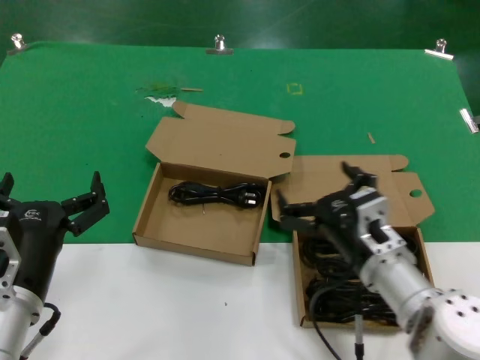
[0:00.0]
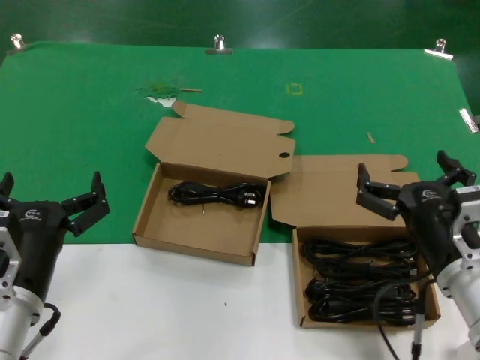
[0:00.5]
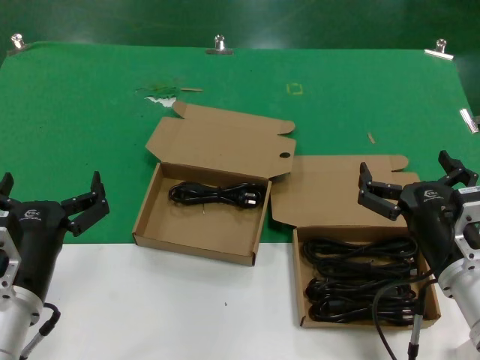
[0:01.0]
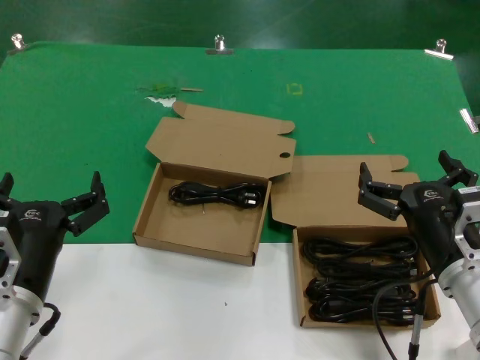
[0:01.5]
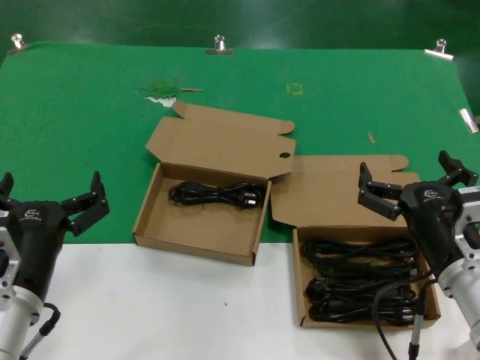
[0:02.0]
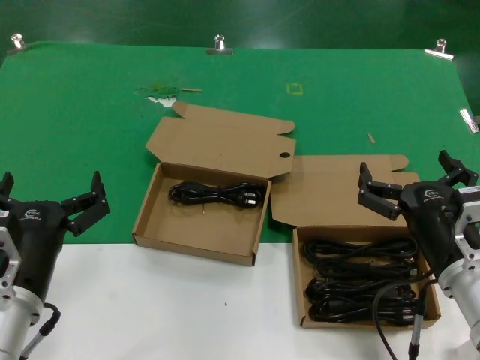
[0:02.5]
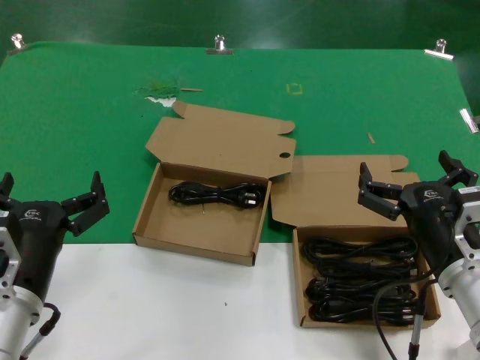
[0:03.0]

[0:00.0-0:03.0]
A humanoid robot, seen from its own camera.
Task of the whole recording: take the parts from the box containing them and put them into an empty box.
0:00.0 to 0:01.5: The right hand goes about 10 cm to the right and backward.
0:01.5 to 0:03.0: The two hands keep their place.

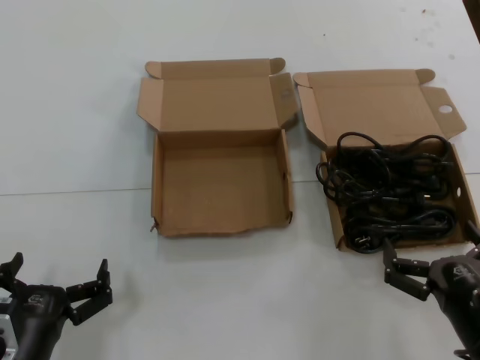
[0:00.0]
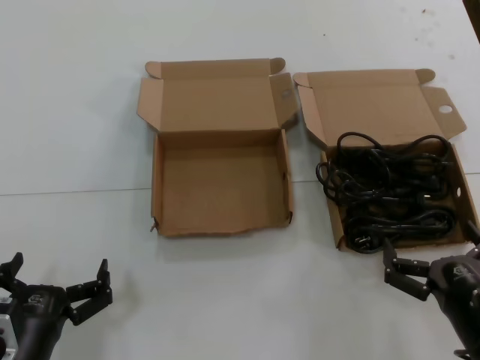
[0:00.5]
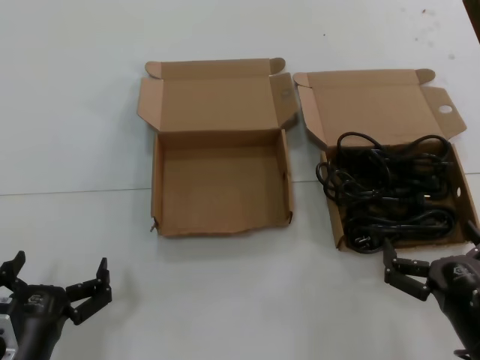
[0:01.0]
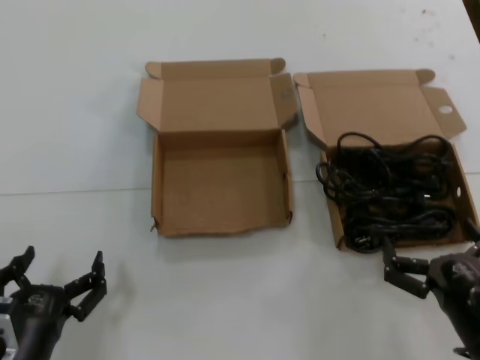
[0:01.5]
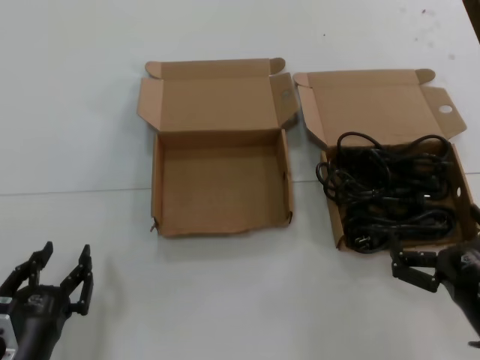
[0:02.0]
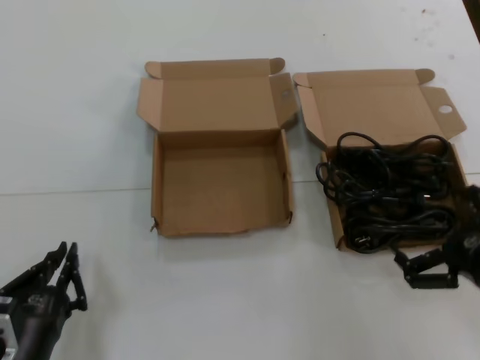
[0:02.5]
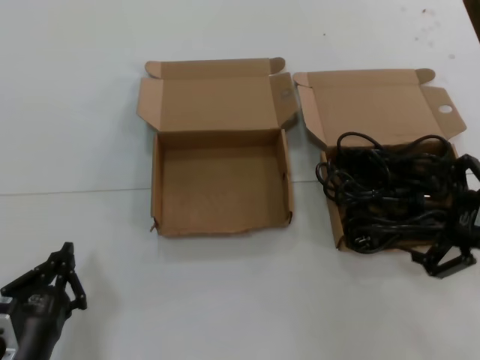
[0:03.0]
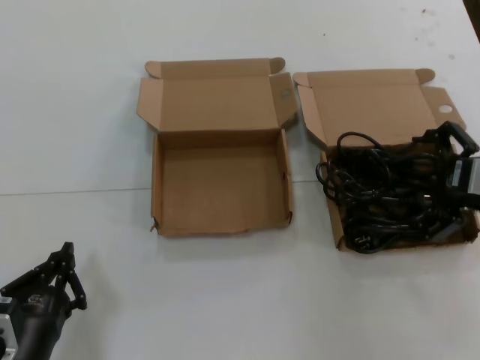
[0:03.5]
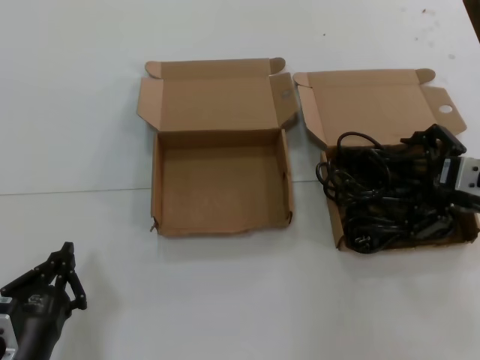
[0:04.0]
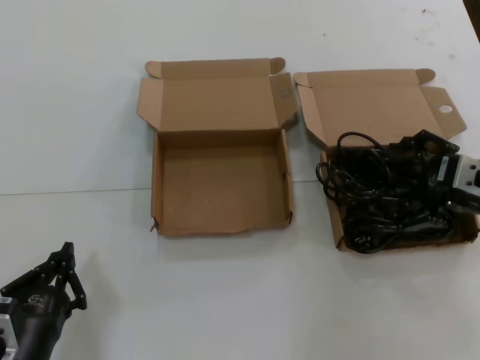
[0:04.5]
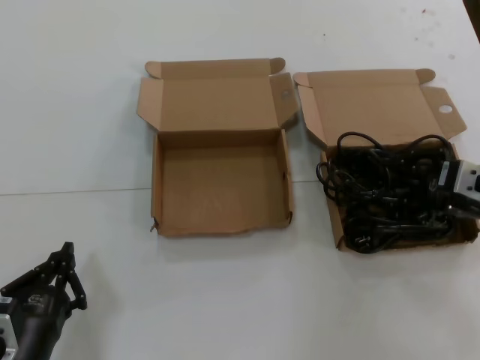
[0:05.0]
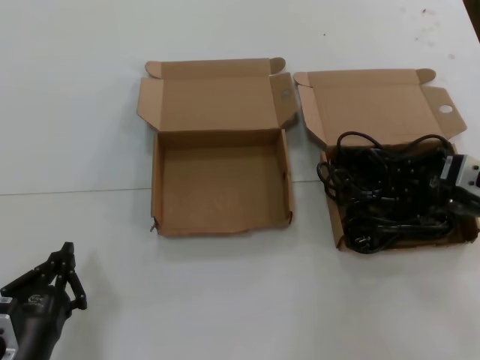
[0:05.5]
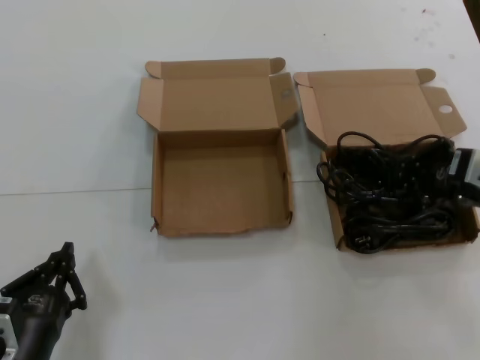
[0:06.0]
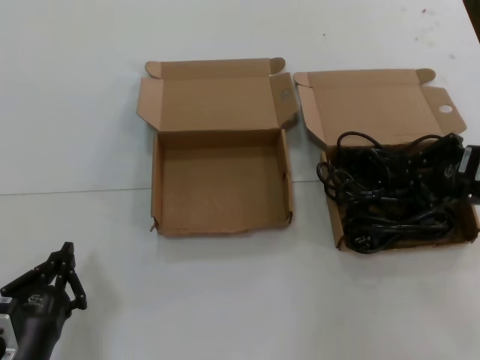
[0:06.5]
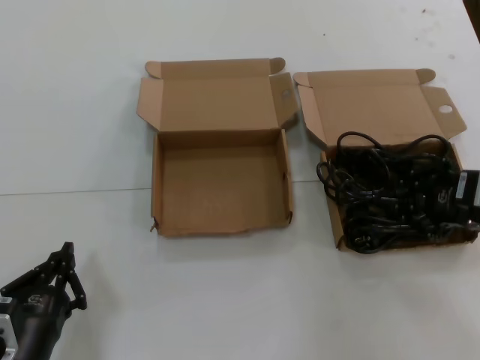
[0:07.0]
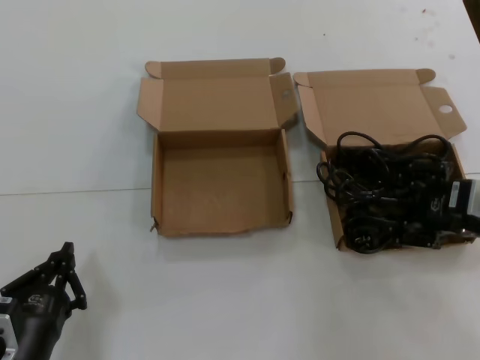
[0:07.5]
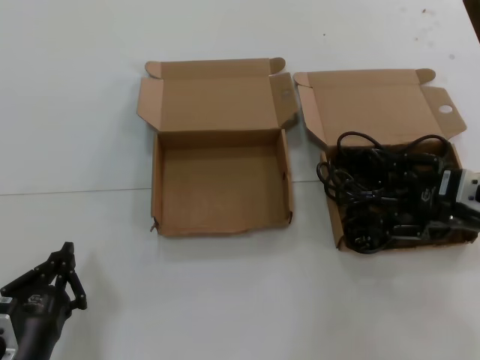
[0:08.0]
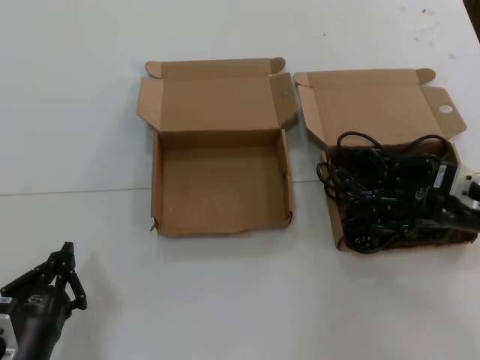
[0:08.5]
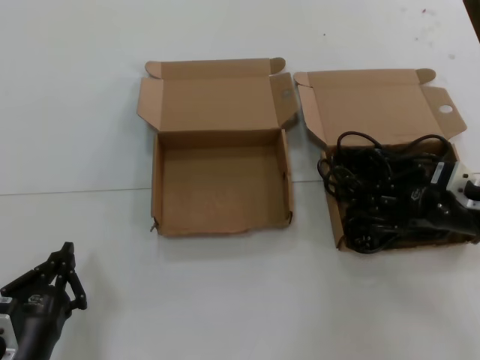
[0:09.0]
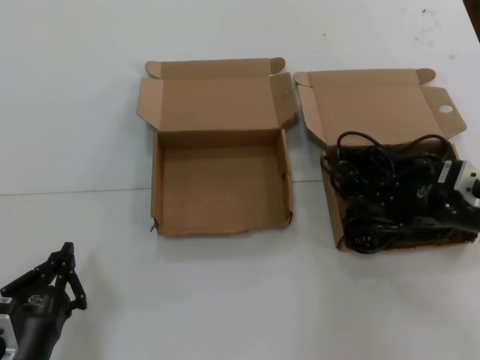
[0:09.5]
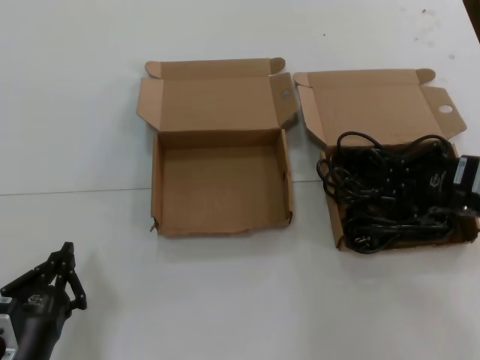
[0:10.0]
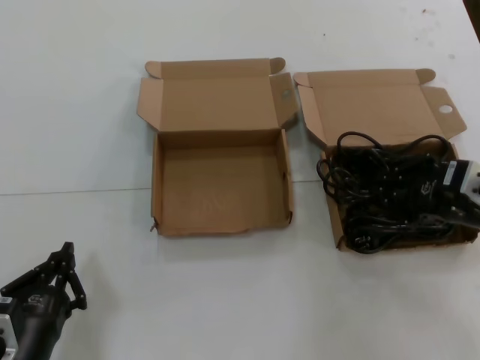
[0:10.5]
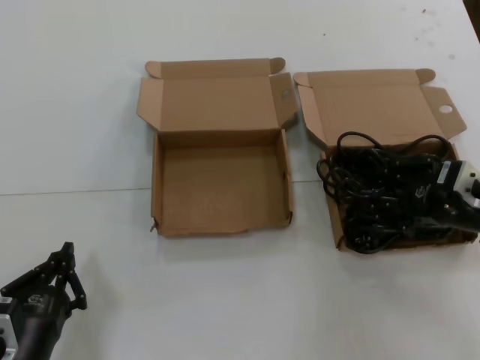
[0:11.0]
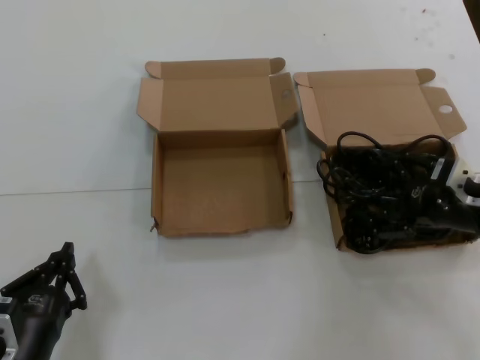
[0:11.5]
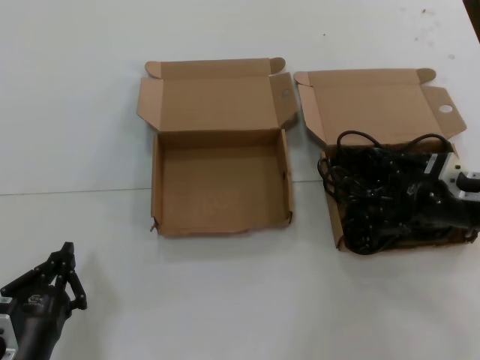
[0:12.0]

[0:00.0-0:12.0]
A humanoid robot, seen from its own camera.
Task of the whole recording: take the parts from the box containing them and put them into an empty box.
0:00.0 to 0:02.0: The hands make only small movements.
0:02.0 to 0:04.0: The right hand goes roughly 25 cm upward, forward and to the right.
0:04.0 to 0:10.0: The hands stay close to where they were, moving slightly.
0:10.0 to 0:12.0: The right hand moves forward, roughly 5 cm.

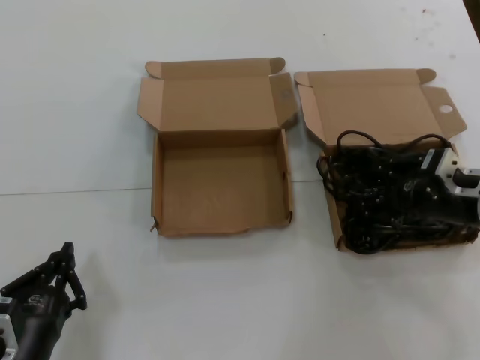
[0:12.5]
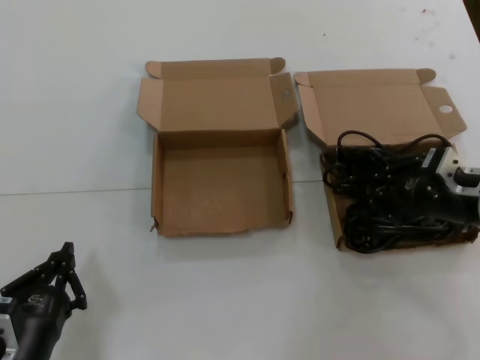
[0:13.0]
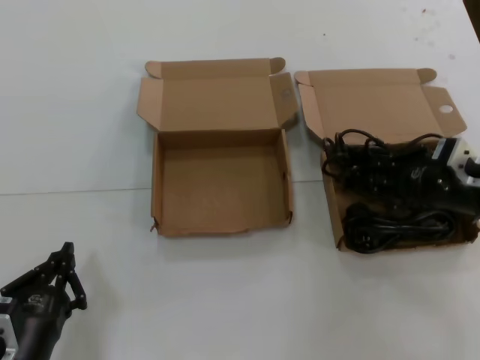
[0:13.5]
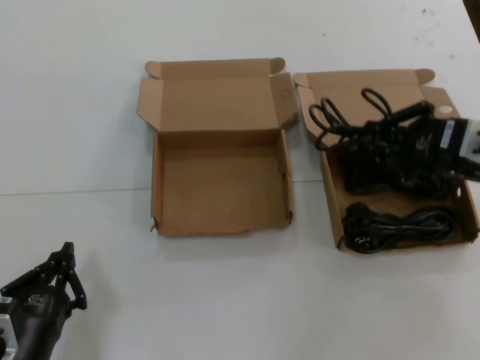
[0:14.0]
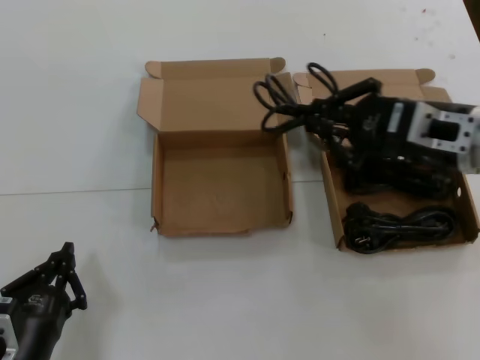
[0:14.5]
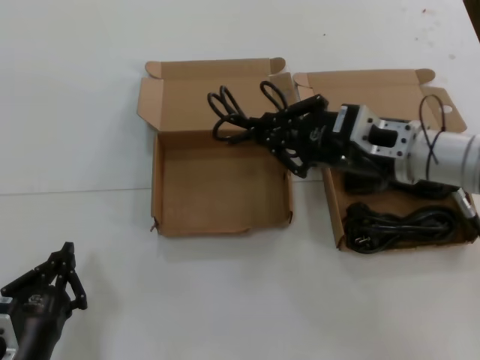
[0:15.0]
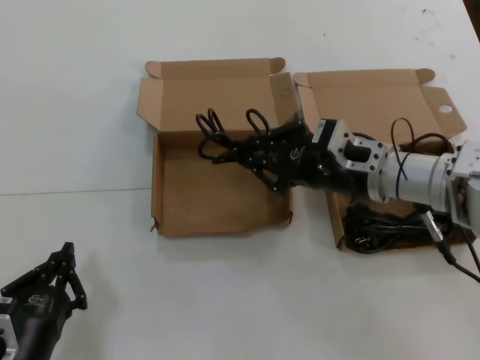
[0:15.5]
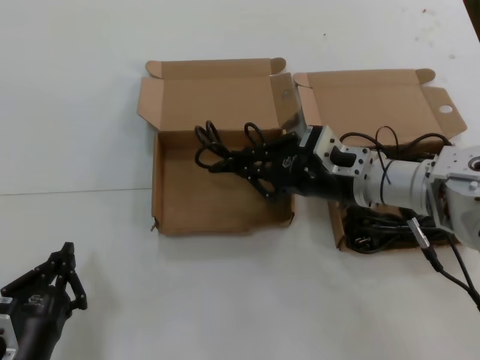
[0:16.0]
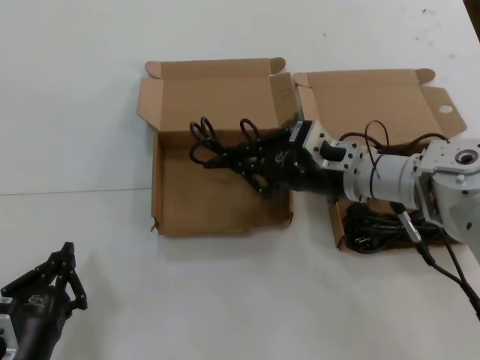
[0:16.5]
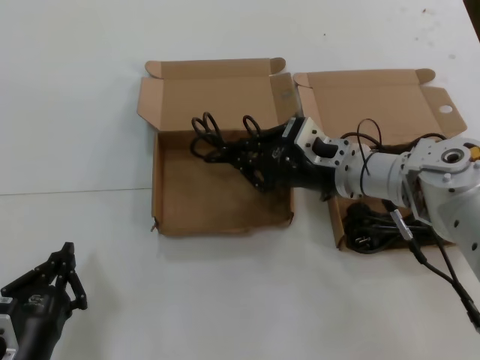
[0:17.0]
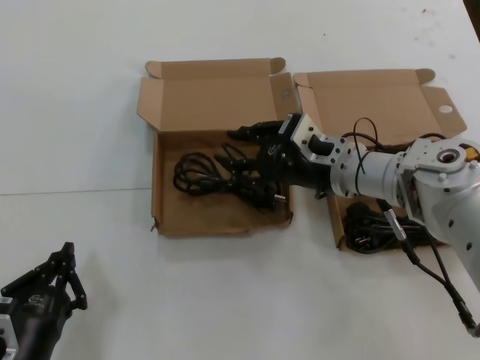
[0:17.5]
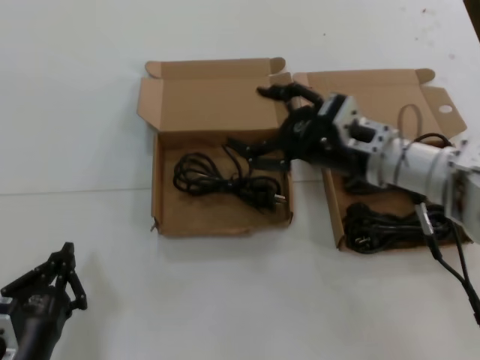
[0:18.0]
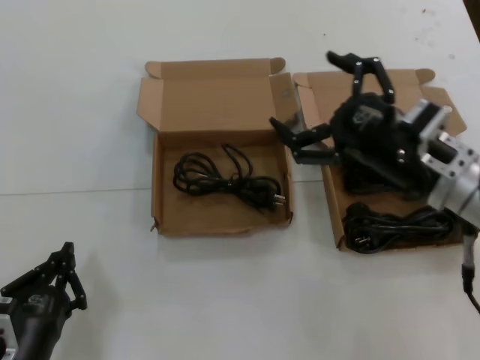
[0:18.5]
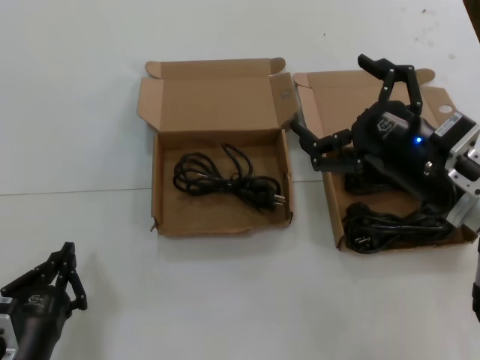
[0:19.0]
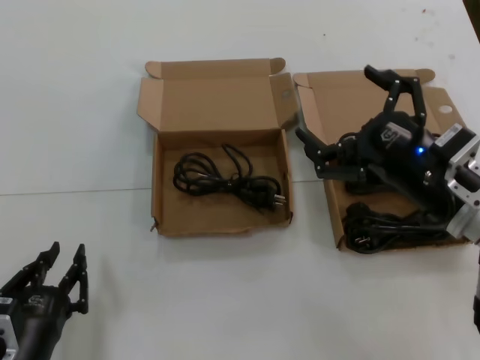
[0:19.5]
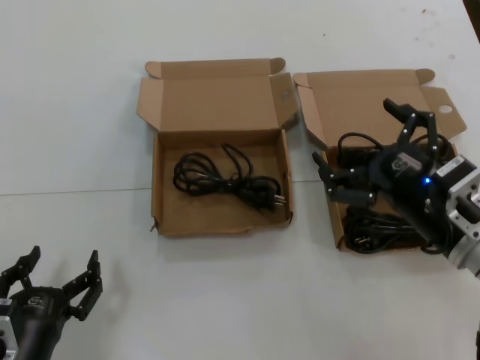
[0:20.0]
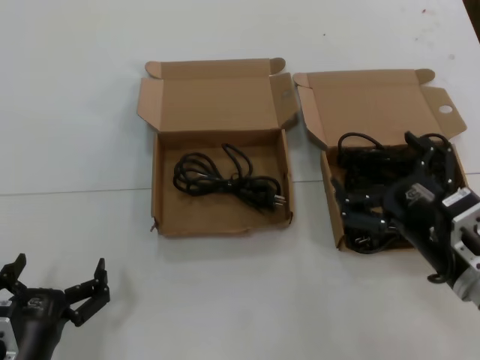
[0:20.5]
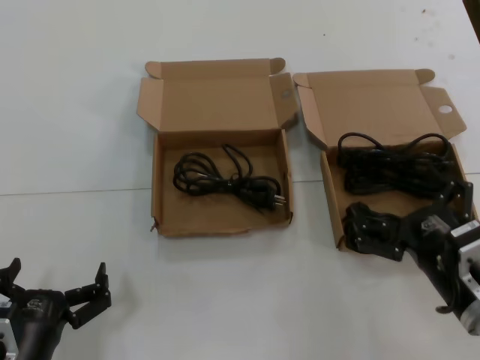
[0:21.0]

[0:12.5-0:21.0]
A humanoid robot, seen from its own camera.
Task of the whole recording: take the parts from the box containing them and put them into an empty box.
Step, 0:13.0 to 0:17.0: Place the data cable in the another box.
0:12.5 to 0:14.5: The right hand heads upward and to the left, covering about 10 cm.
0:14.5 to 0:16.5: The right hand goes approximately 15 cm to the left, downward and forward.
0:16.5 to 0:19.0: The right hand travels backward and to the right by about 15 cm.
0:19.0 to 0:21.0: The right hand heads downward and backward, covering roughly 15 cm.
